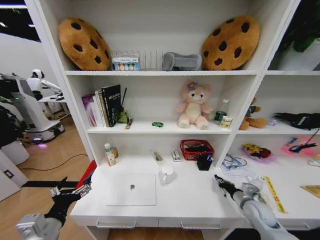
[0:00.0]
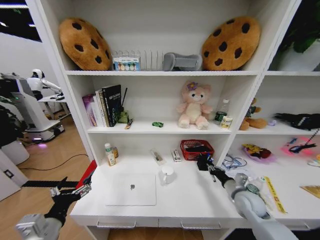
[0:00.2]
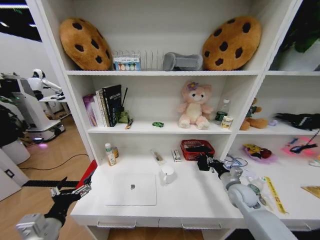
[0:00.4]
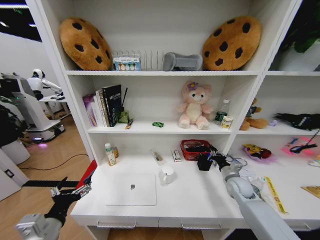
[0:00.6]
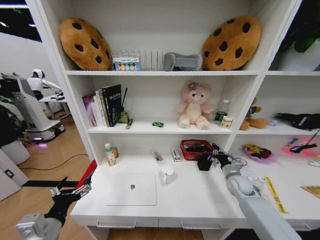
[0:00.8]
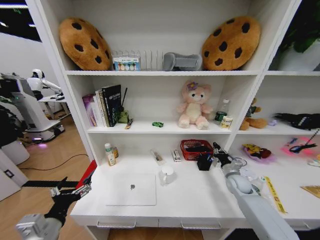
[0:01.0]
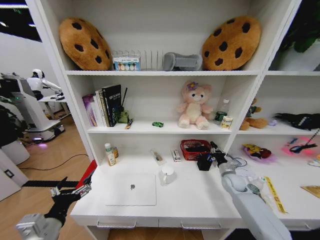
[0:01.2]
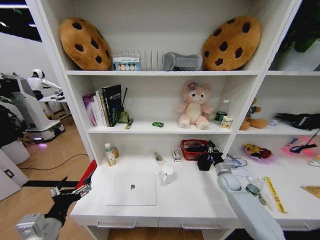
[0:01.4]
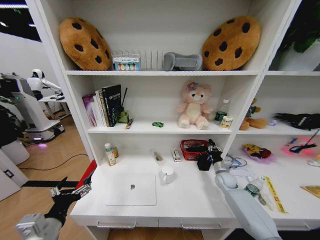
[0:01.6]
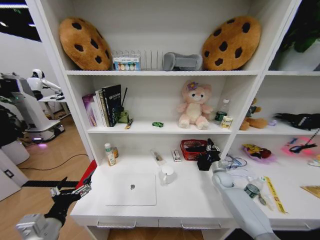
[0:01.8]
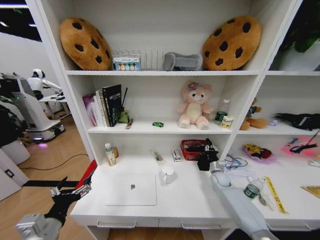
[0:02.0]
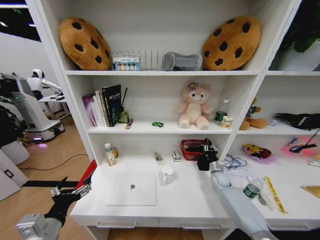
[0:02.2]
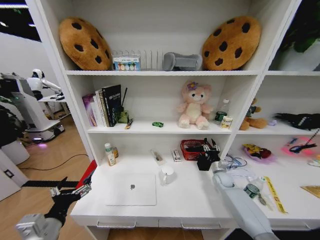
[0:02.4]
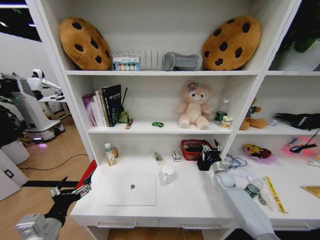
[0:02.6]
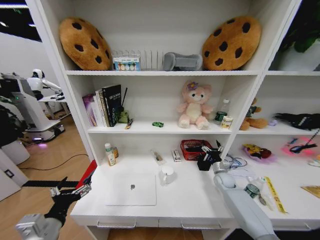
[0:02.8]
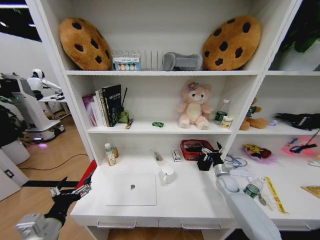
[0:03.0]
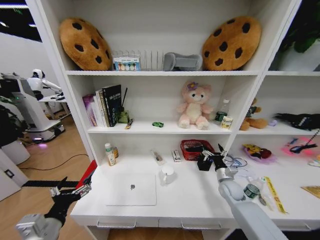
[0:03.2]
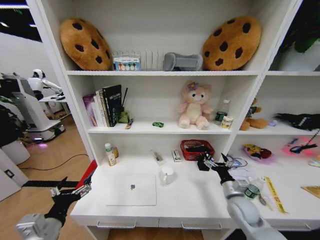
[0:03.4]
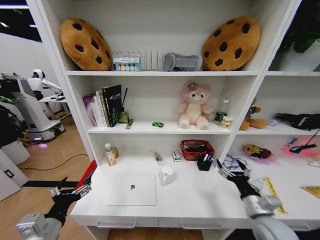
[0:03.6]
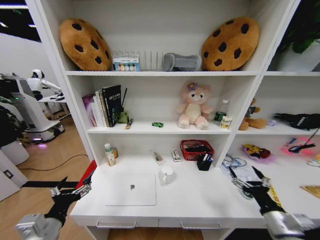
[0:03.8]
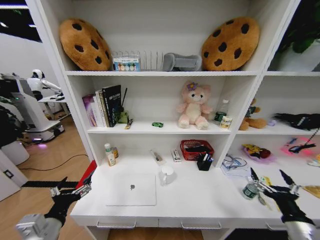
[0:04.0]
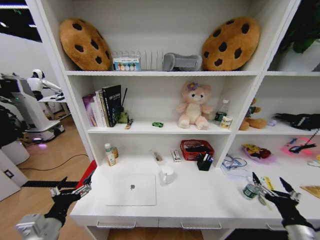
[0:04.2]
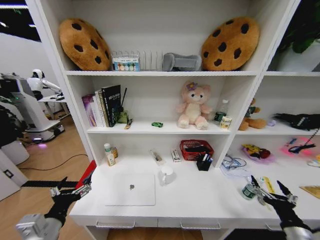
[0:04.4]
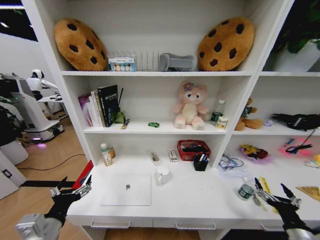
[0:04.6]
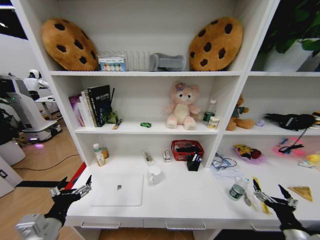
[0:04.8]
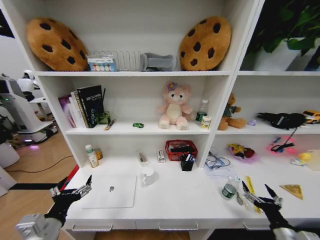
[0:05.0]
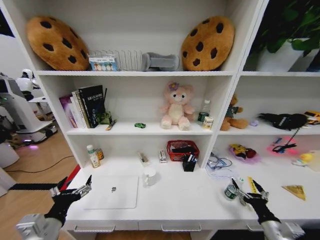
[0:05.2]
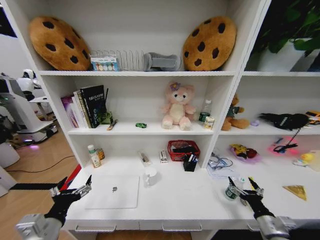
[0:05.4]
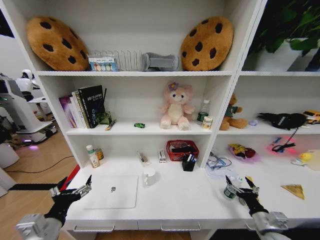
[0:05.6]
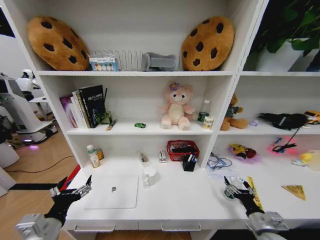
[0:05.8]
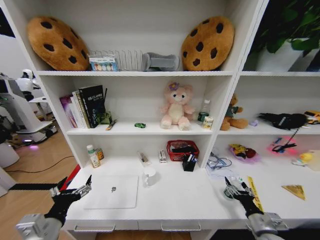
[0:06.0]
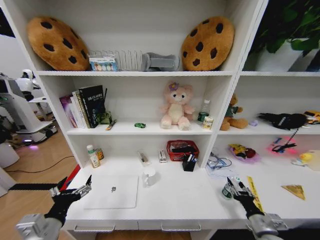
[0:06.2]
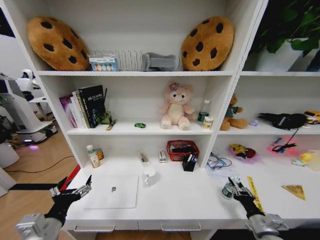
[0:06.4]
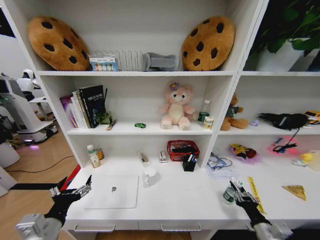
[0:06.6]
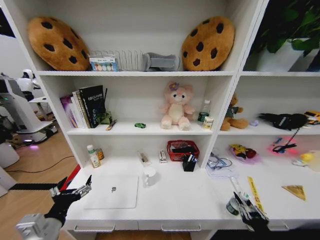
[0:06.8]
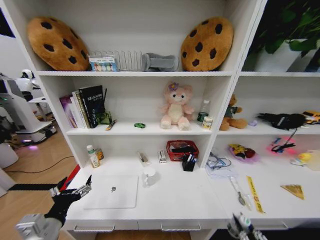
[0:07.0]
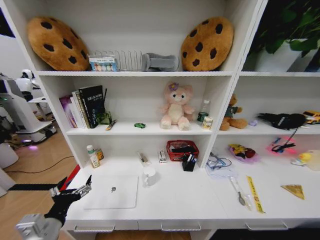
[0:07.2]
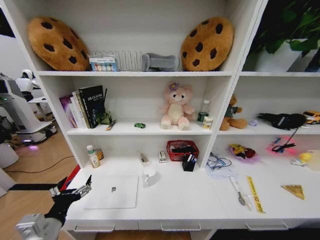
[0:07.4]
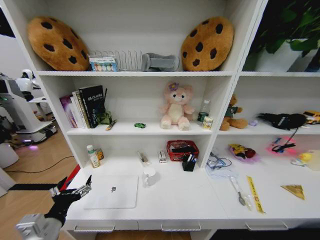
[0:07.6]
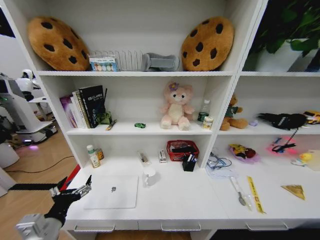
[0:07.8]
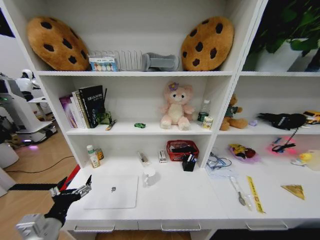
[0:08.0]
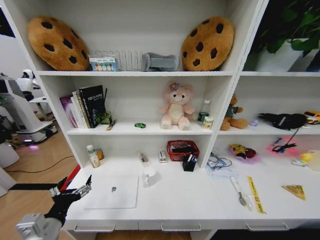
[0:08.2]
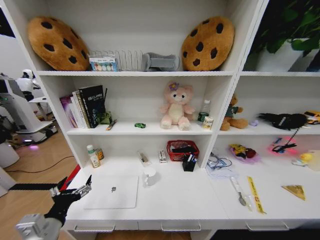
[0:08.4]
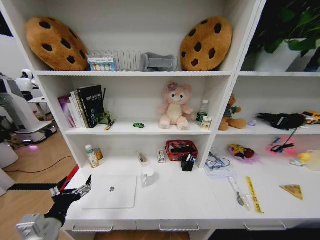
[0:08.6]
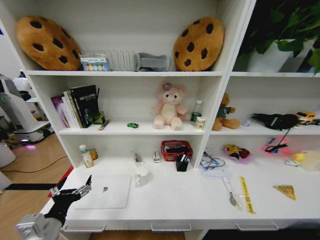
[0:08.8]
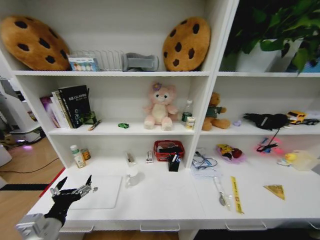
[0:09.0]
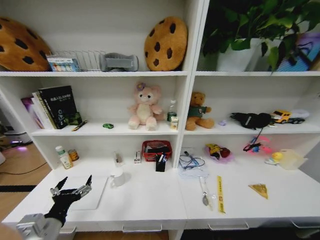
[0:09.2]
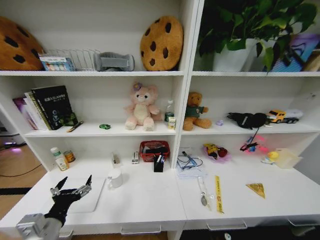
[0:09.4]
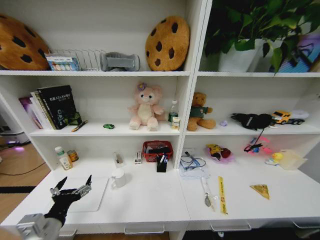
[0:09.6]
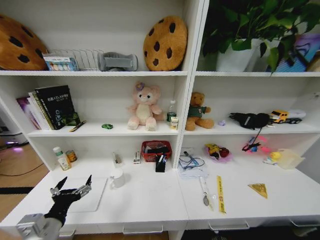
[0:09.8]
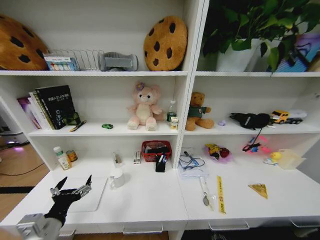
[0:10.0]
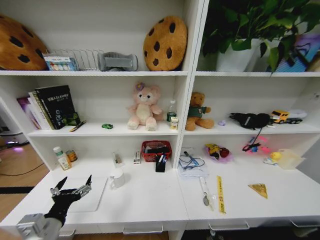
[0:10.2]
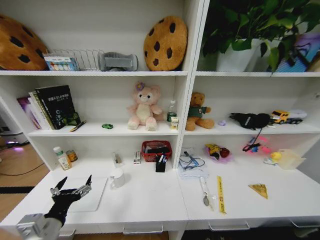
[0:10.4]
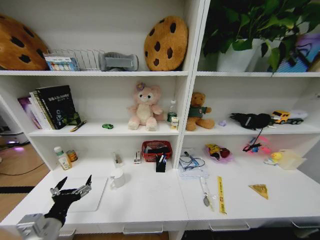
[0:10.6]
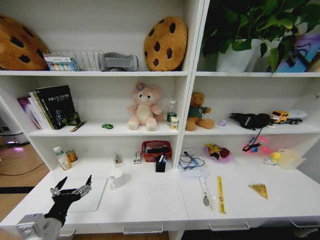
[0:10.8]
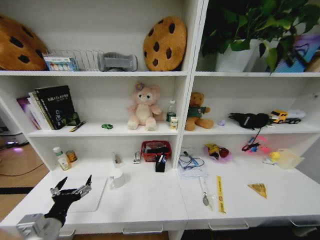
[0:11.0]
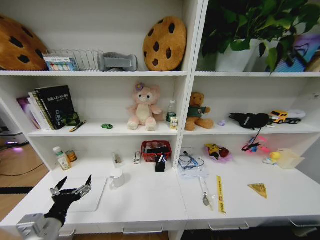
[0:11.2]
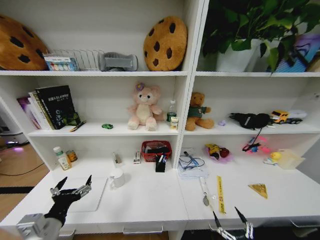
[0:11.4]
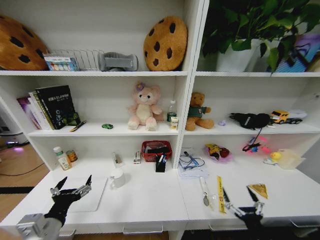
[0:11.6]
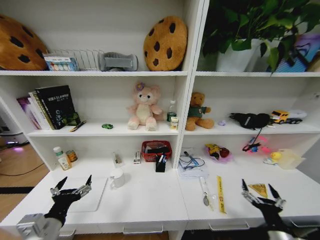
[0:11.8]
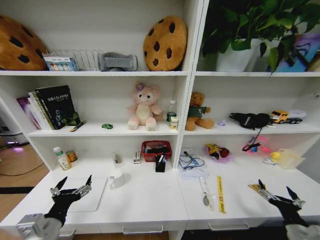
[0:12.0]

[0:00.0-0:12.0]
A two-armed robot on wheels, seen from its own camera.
Task of the whole recording: Organize the objects on the table.
0:00.0 to 0:01.6: The right gripper goes some 15 cm forward.
0:01.6 to 0:03.0: The right gripper opens.
0:03.0 to 0:04.4: The right gripper moves backward, some 30 cm.
0:04.4 to 0:06.0: The right gripper shifts approximately 10 cm downward and forward.
0:06.0 to 0:07.6: The right gripper moves backward, some 30 cm, and closes its fingers.
0:07.6 to 0:09.0: The right gripper goes some 20 cm downward, to the right and forward.
0:09.0 to 0:10.4: The right gripper travels forward, downward and to the left by some 15 cm, and opens its fingers.
0:10.4 to 0:12.0: The right gripper heads upward, covering about 35 cm, and opens up.

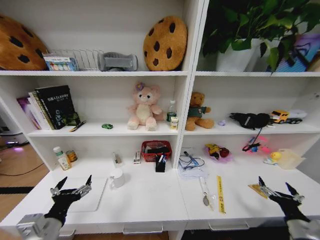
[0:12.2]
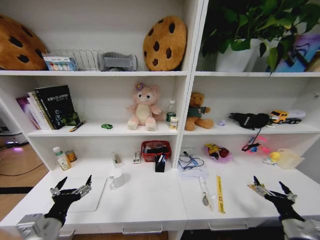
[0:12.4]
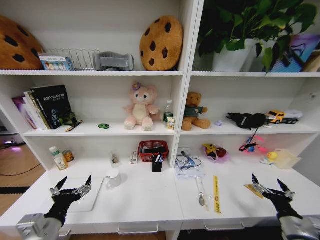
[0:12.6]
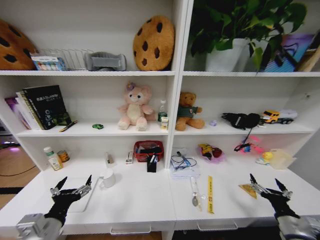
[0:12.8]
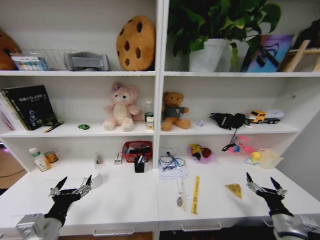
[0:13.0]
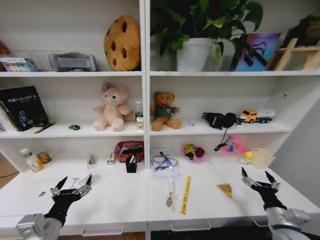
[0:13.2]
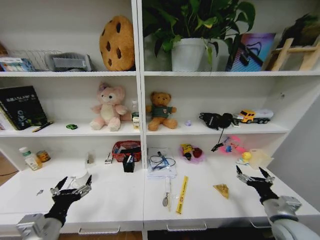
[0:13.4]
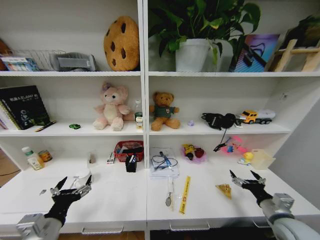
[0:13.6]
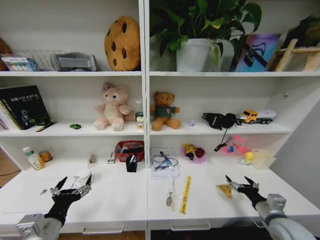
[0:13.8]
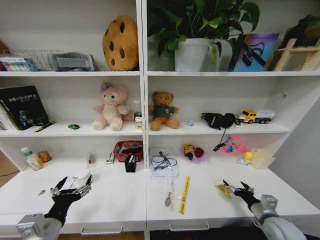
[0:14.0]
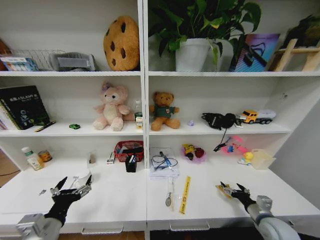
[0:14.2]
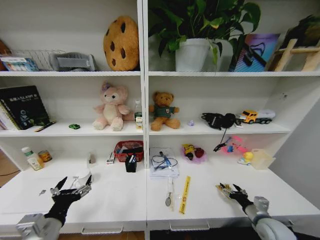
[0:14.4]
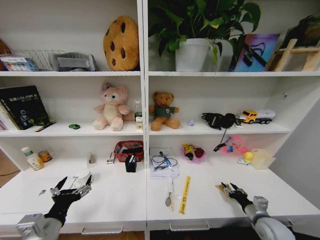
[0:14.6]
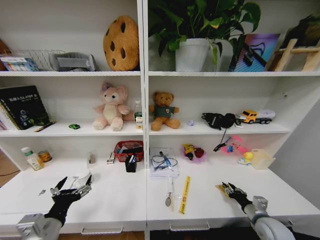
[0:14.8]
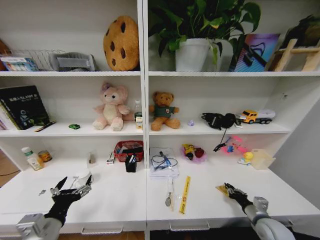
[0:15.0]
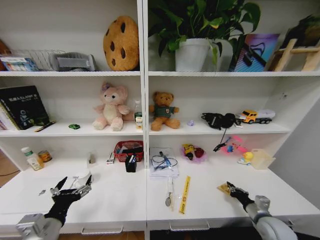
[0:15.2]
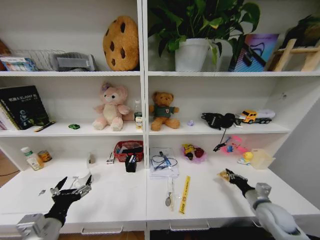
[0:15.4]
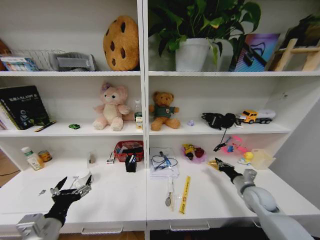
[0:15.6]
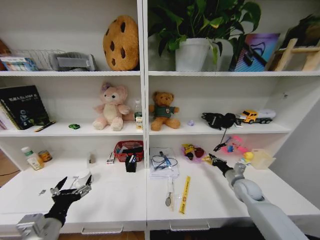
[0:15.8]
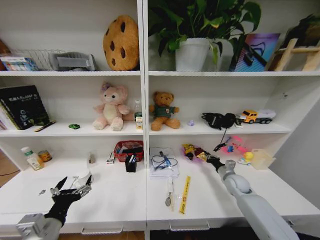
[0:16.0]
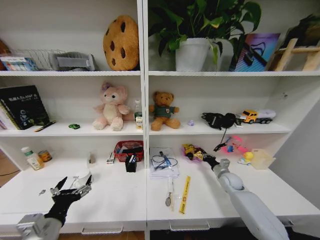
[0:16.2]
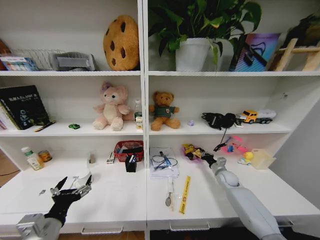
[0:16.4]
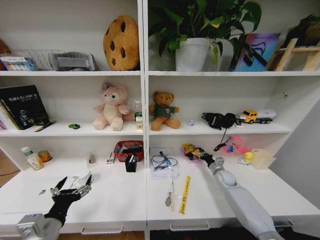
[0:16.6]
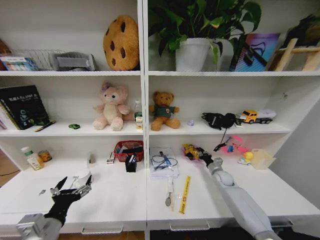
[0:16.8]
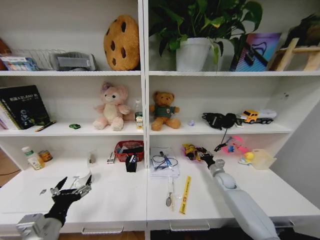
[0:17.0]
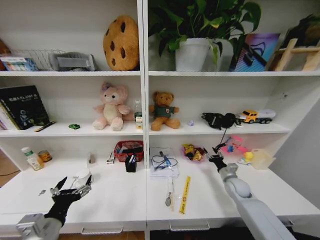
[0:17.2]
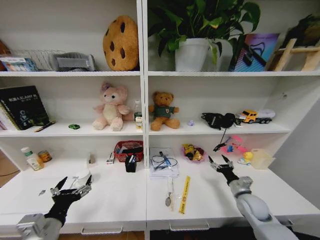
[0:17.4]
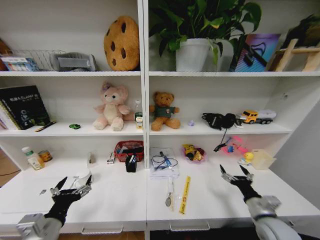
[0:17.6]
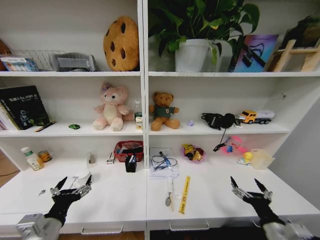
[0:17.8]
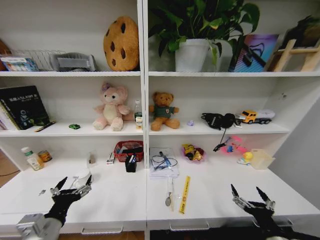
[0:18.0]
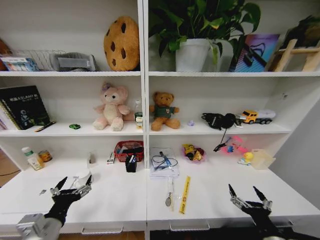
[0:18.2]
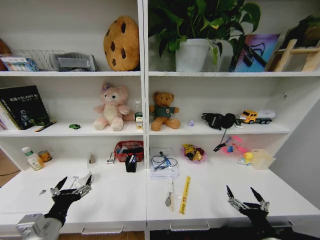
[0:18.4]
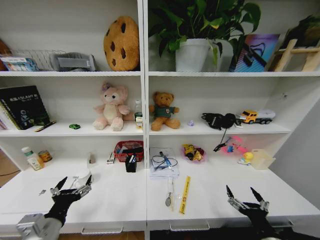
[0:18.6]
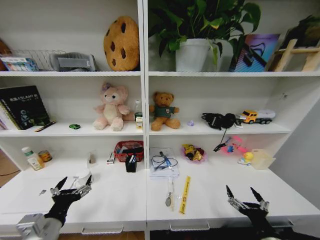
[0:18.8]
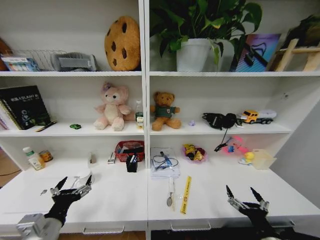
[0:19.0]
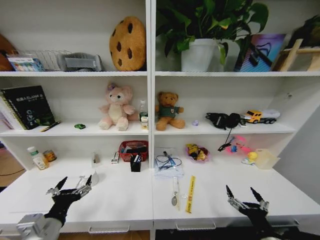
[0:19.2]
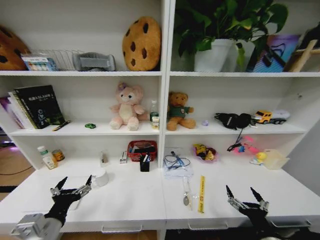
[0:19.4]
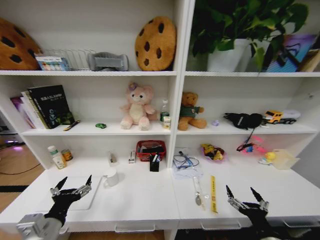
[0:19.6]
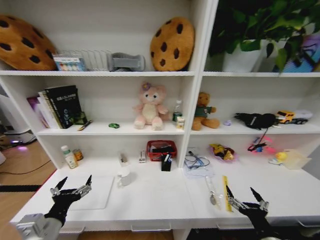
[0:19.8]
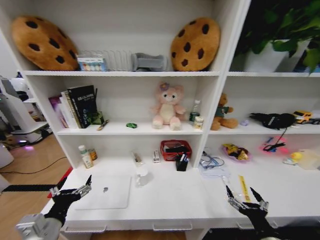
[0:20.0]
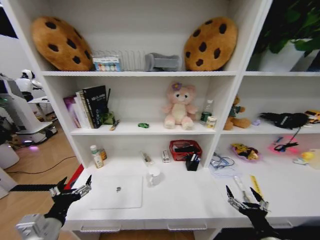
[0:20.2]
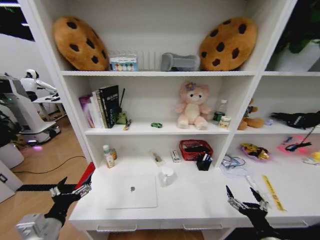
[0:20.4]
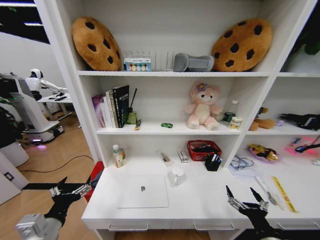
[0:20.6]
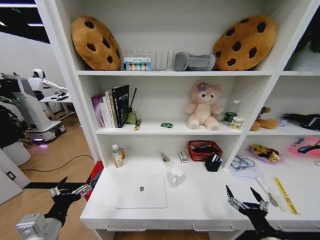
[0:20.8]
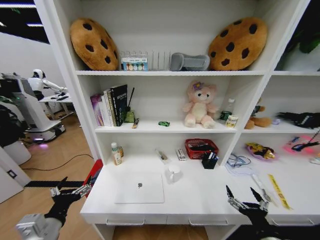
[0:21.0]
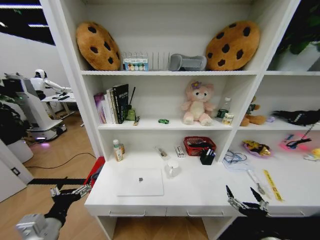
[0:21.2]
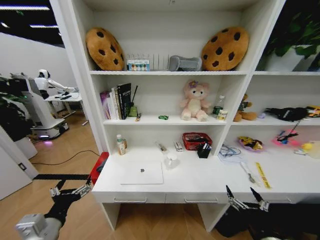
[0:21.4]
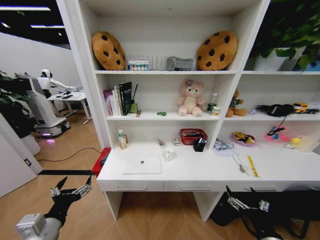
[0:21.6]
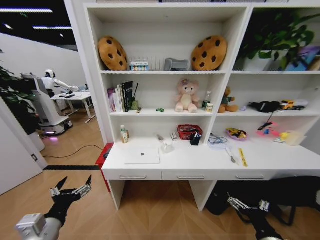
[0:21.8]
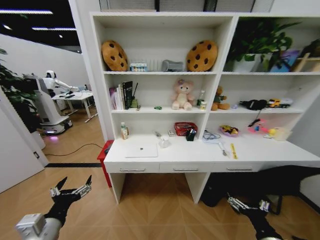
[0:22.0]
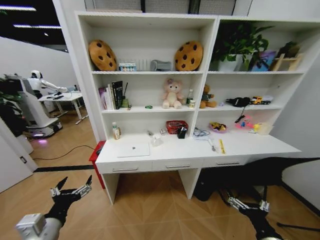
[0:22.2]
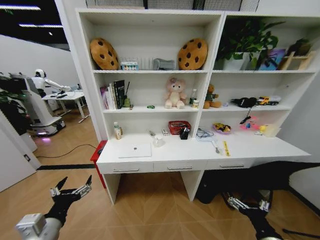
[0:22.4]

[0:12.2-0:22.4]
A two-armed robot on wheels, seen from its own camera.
Task of the whole recording: Organize the objects on the table.
0:12.2 to 0:13.6: The right gripper shifts about 5 cm forward.
0:13.6 to 0:15.2: The right gripper goes approximately 10 cm downward, and closes its fingers.
0:15.2 to 0:16.6: The right gripper heads forward, covering some 25 cm.
0:16.6 to 0:18.0: The right gripper goes roughly 35 cm backward, and opens.
